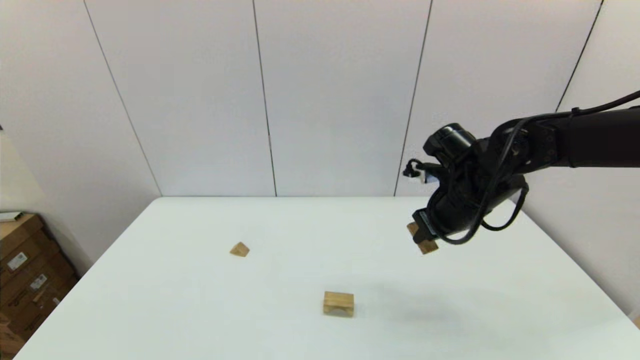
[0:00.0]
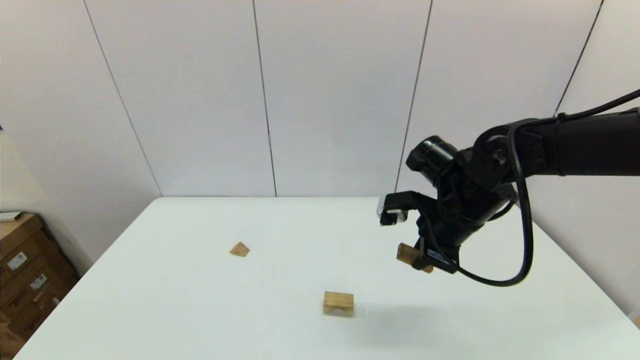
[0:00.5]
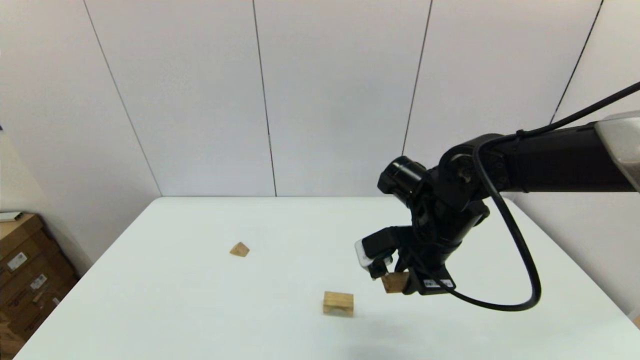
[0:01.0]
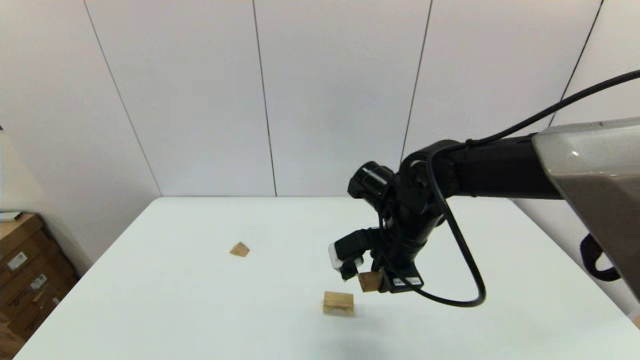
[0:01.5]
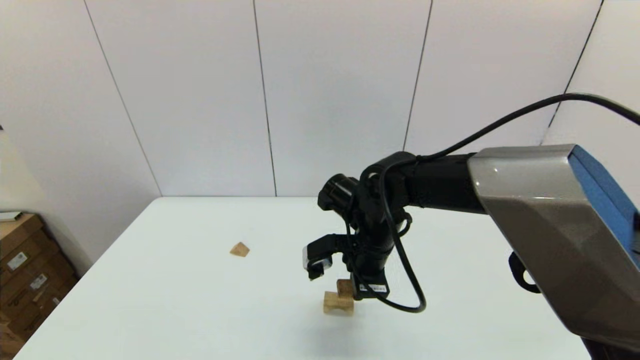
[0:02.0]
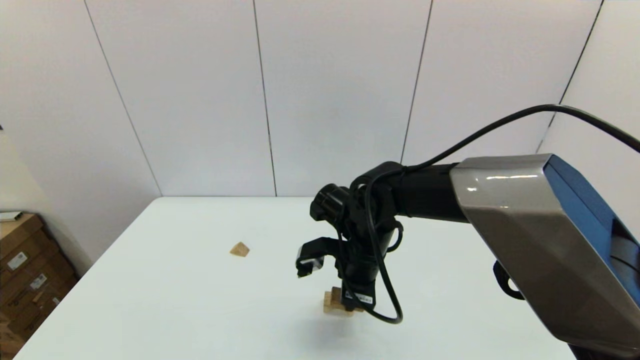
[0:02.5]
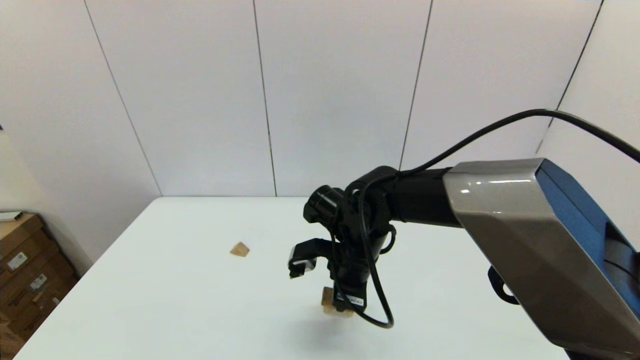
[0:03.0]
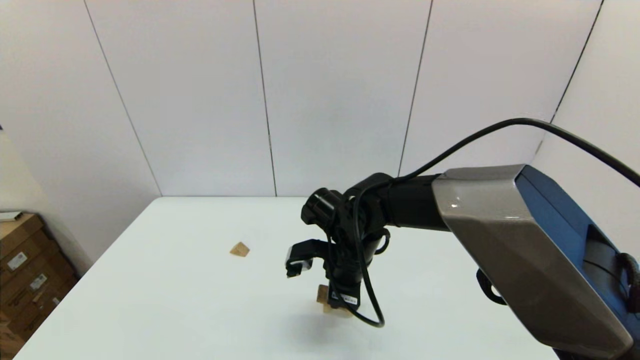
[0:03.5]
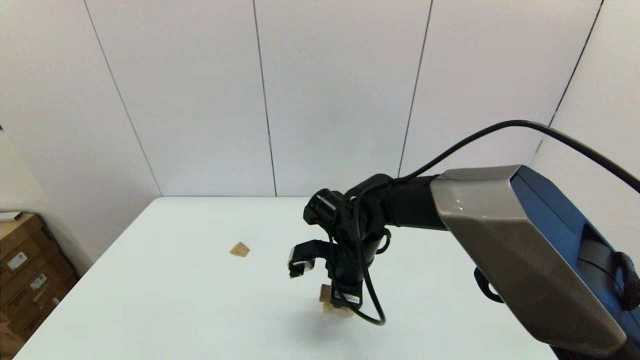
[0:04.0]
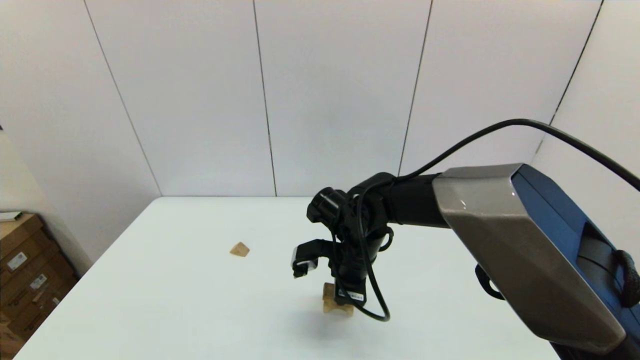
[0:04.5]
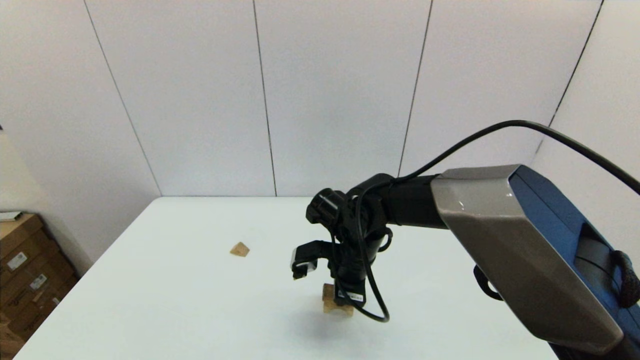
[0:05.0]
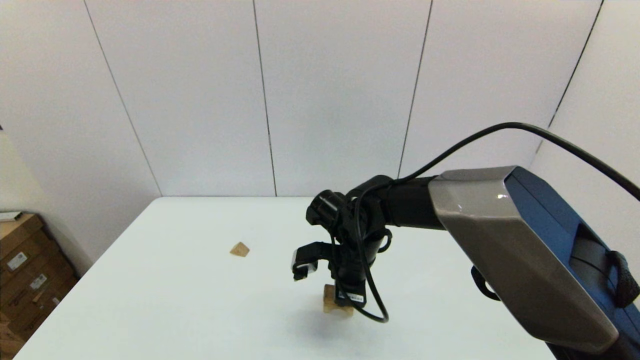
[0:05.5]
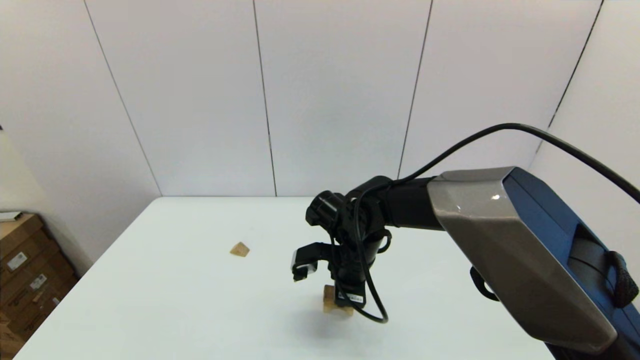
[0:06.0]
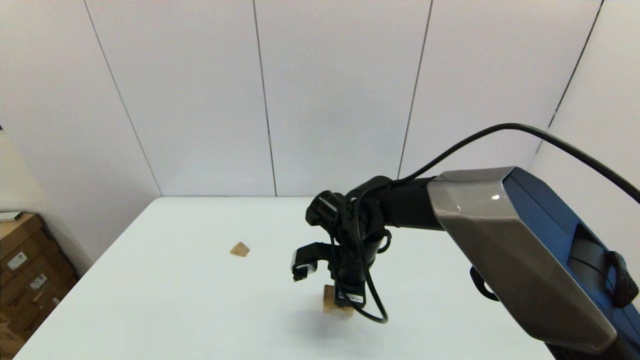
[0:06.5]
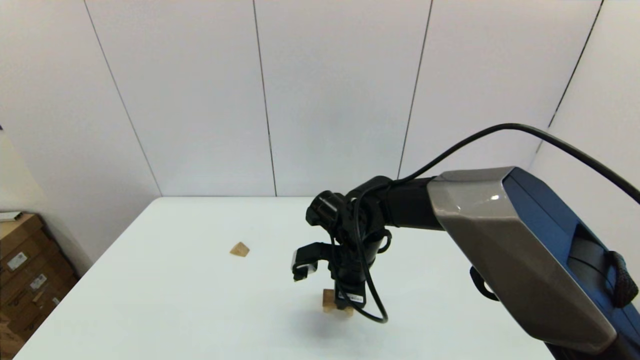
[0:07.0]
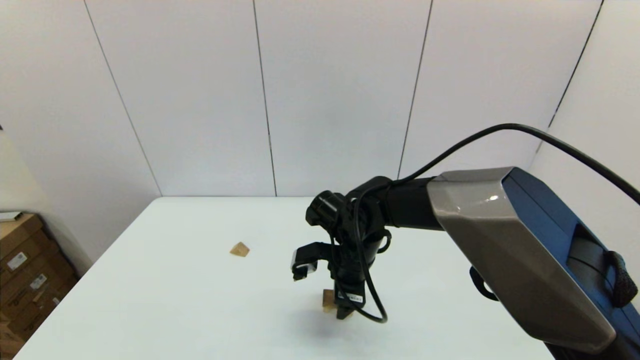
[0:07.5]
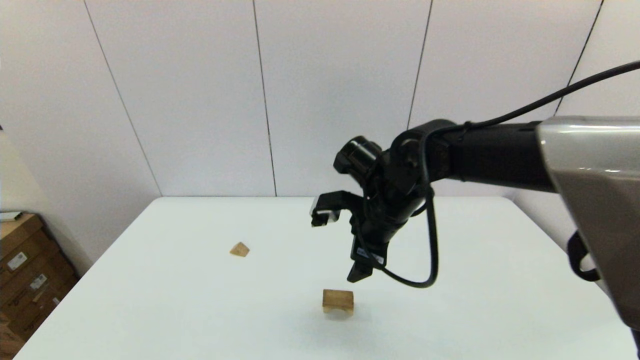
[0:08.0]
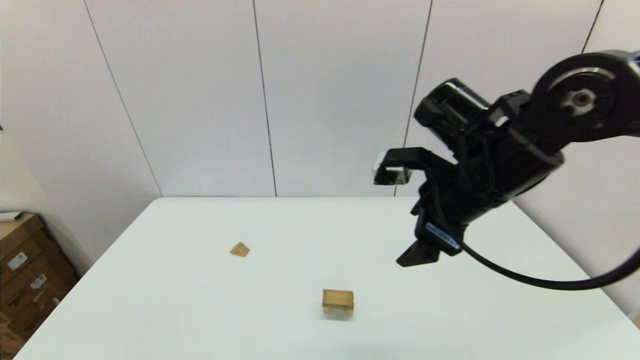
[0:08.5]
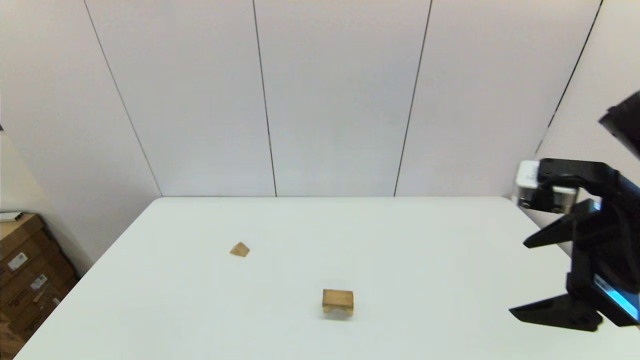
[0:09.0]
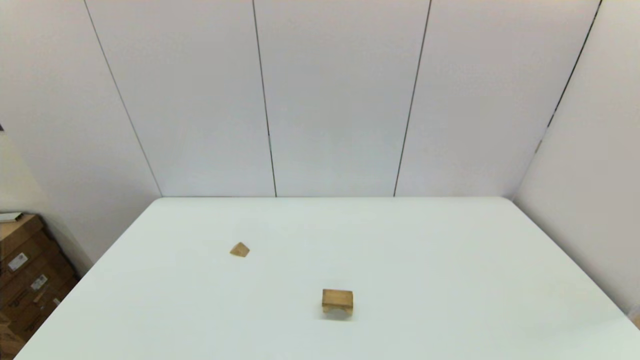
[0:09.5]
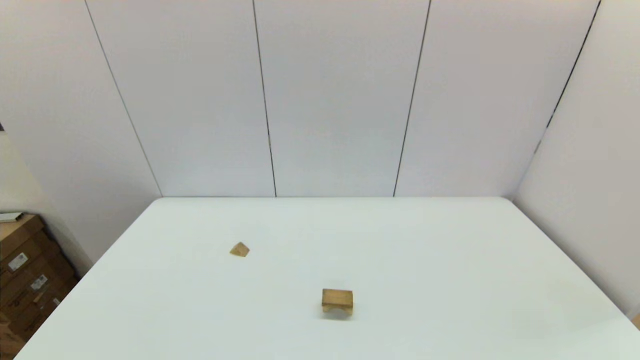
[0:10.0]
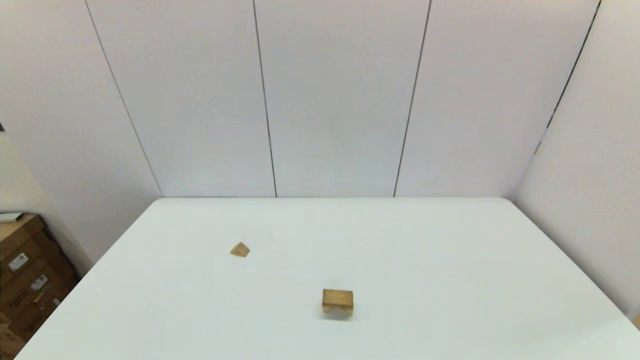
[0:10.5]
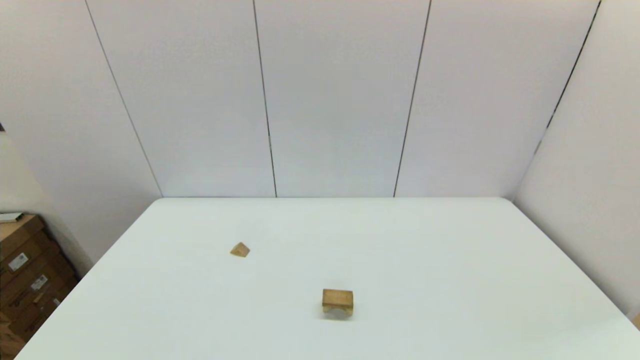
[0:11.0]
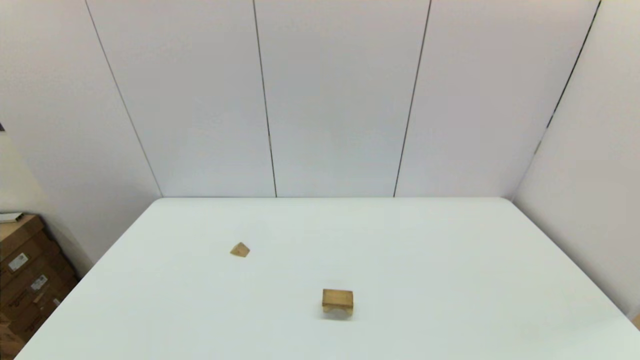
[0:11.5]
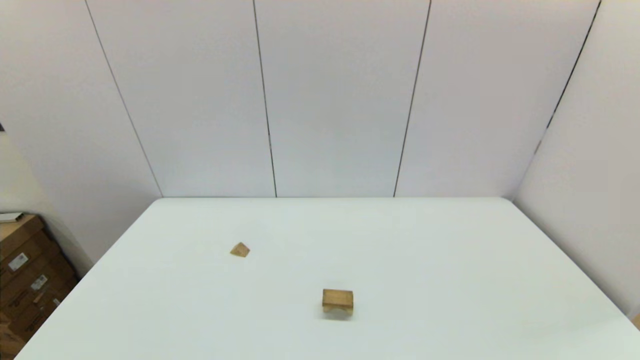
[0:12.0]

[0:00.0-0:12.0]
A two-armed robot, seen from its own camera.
Task of the whole recording: place the arched building blocks in the center of the table, set up the rectangular building blocks, and then set up the triangular building blocks.
Step, 0.0 to 7.0 s: Place the box-shaped block onto the arch-shaped block with the right gripper.
0.0 to 2.0 s: The right gripper shifts roughly 15 cm to the left.
2.0 to 4.0 s: The grippers make only small movements.
4.0 to 6.0 s: Neither gripper changes place.
6.0 to 8.0 s: The right gripper moves upward, roughly 10 cm, and opens up.
8.0 to 10.0 s: The right gripper moves backward and to the right, roughly 40 cm.

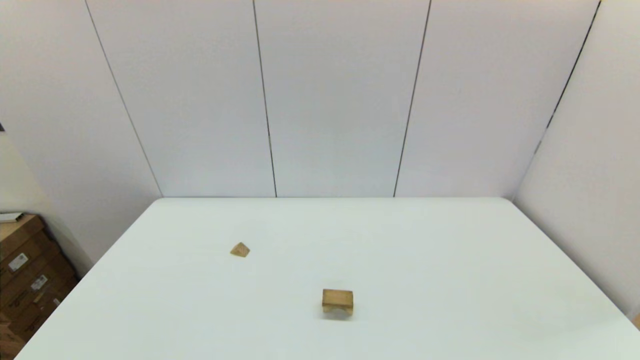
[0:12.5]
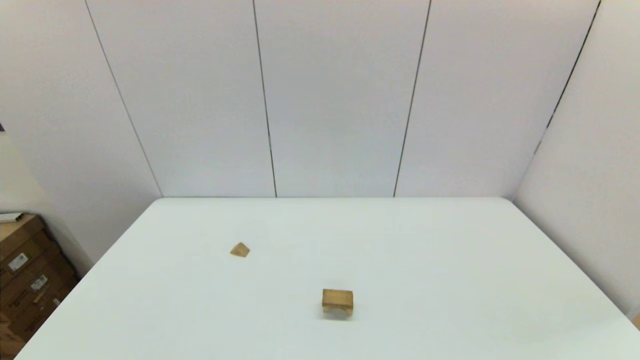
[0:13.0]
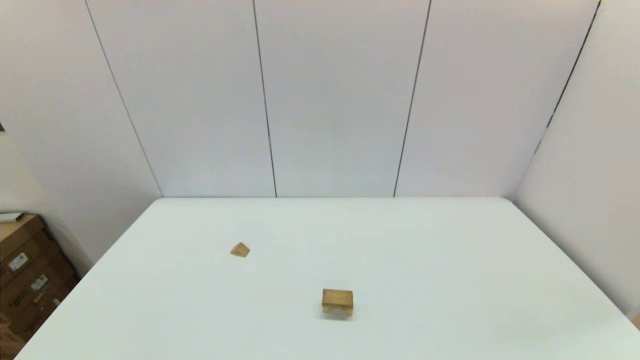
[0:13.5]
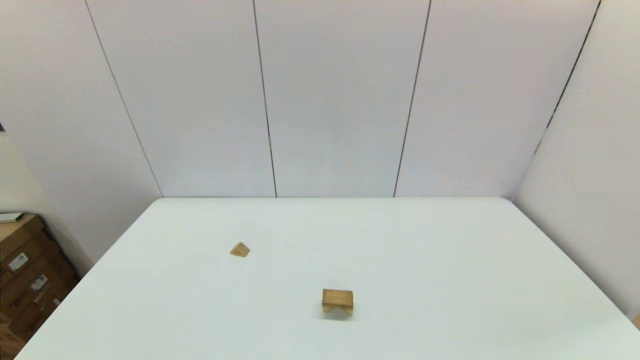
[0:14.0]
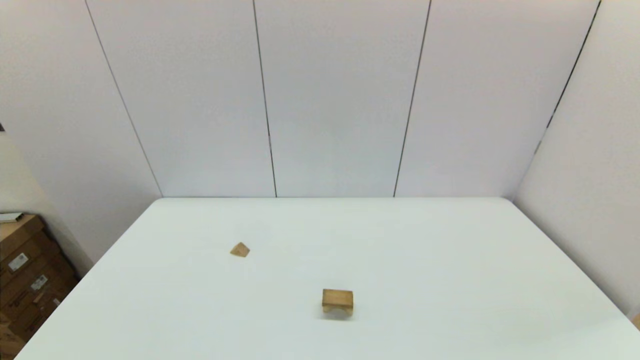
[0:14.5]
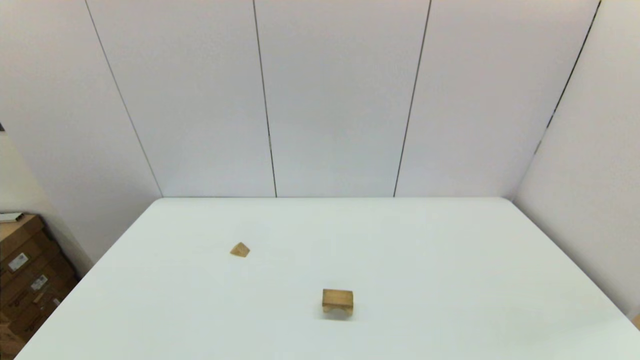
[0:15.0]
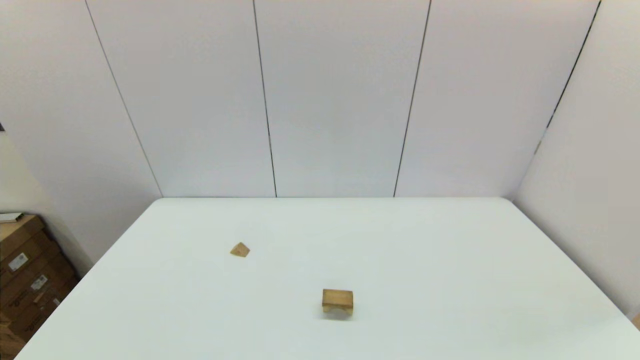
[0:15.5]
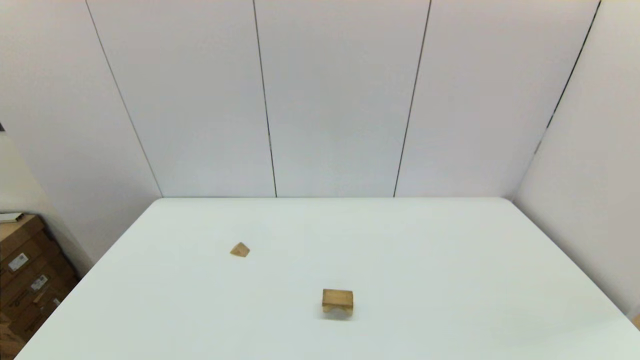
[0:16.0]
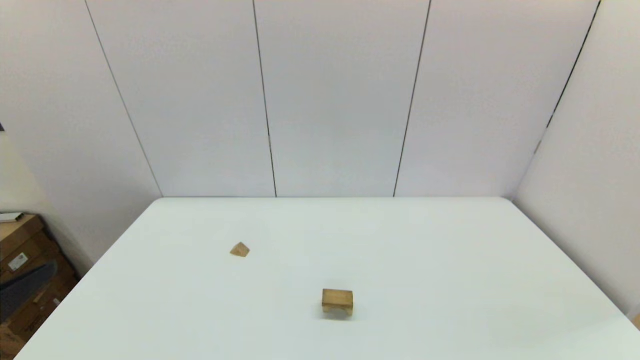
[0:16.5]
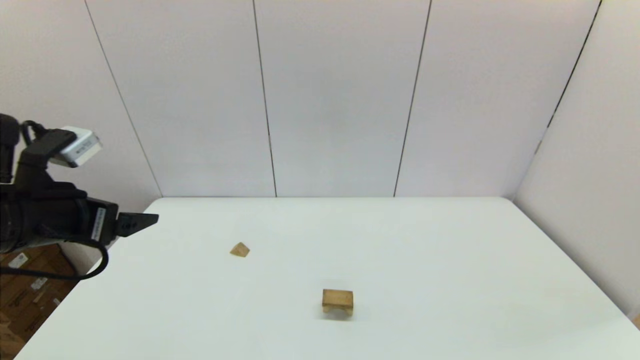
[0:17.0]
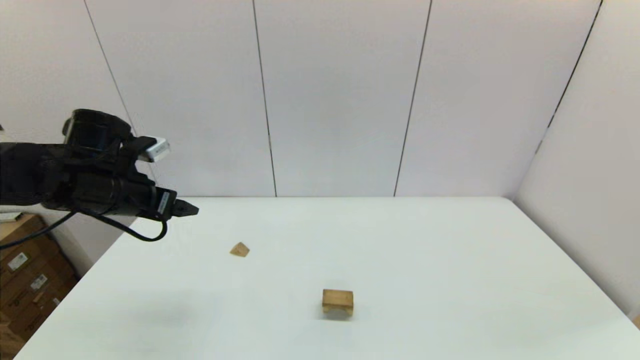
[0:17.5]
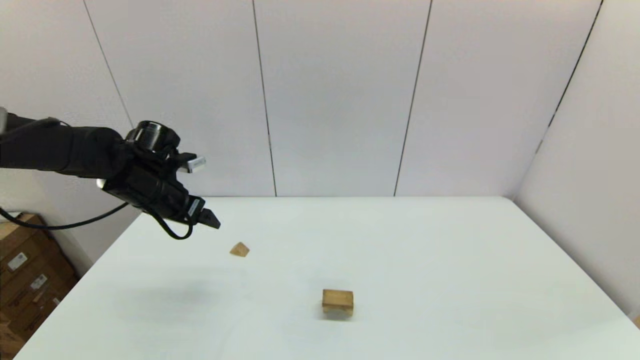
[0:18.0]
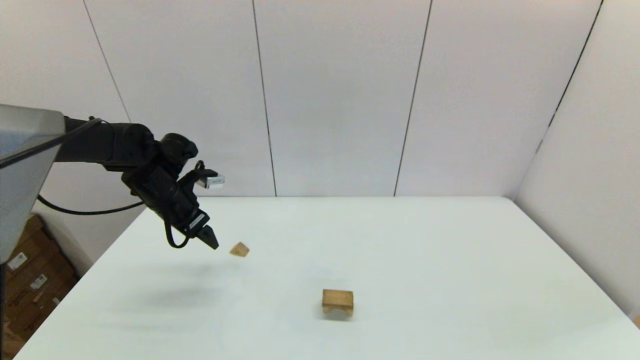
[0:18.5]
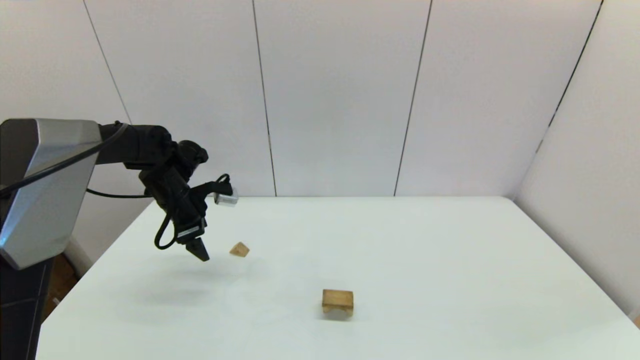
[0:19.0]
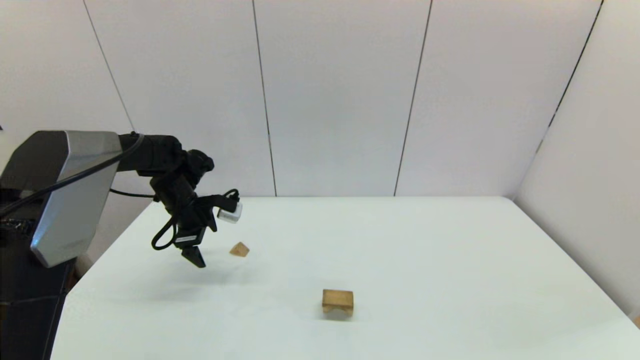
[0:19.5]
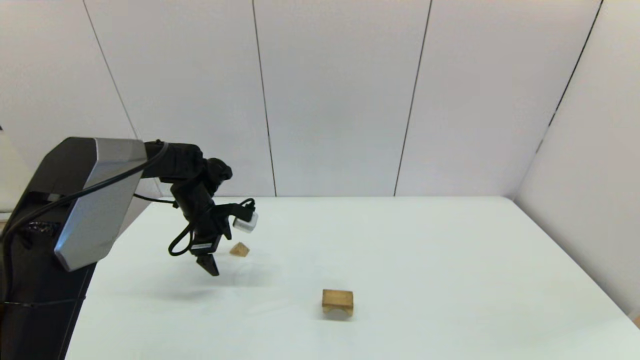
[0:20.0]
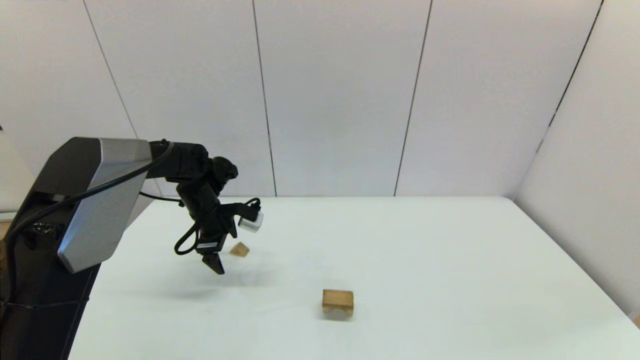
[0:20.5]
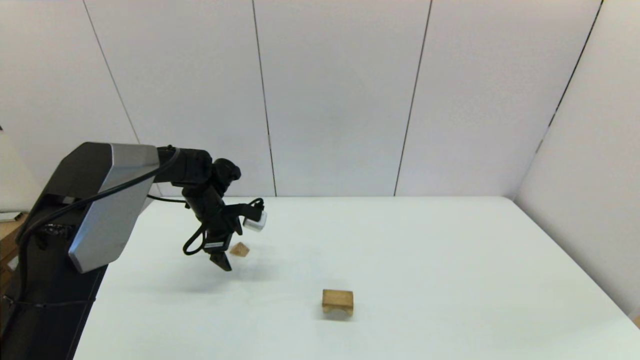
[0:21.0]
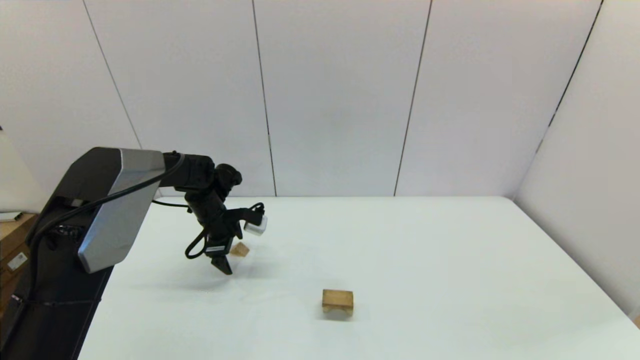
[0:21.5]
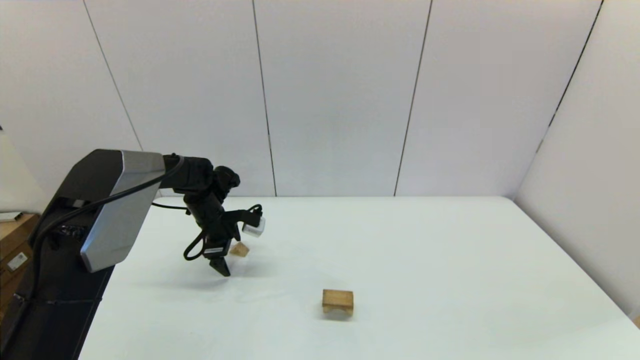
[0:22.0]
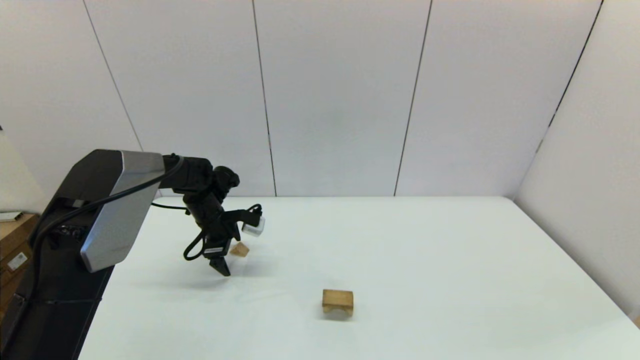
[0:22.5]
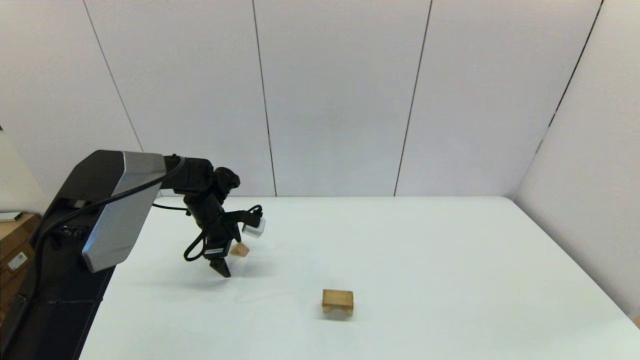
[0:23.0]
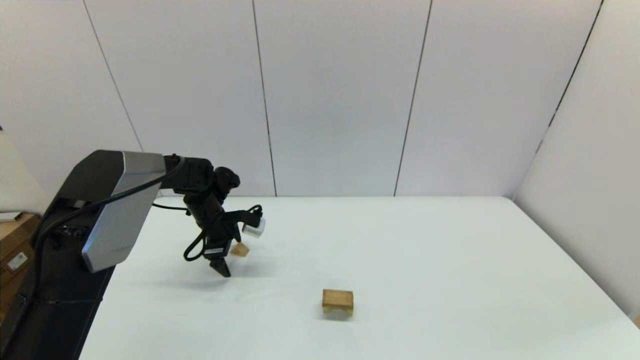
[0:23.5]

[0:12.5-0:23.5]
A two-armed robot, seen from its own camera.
Task of the whole recording: place the arched building blocks in the center of the table, set up the rectangular building blocks, and then set up the triangular building blocks.
16.0 to 18.0 s: The left gripper heads forward, covering approximately 40 cm.
18.0 to 20.0 s: The left gripper is displaced downward and forward by approximately 10 cm.
20.0 to 21.5 s: There are only small adjustments of the grippers.
21.5 to 23.5 s: Both grippers stay put.
